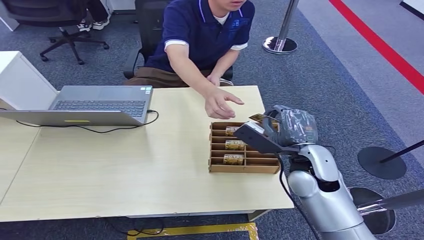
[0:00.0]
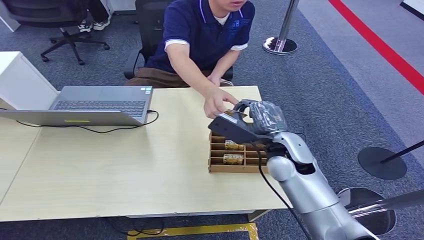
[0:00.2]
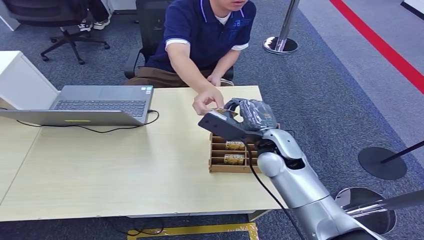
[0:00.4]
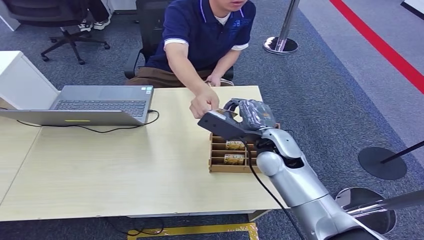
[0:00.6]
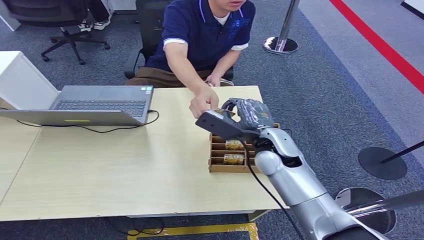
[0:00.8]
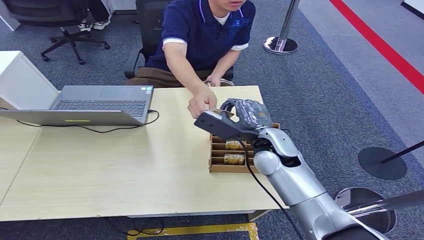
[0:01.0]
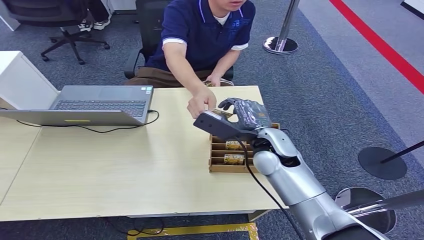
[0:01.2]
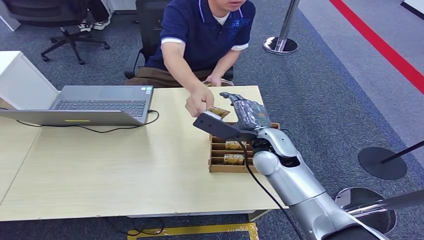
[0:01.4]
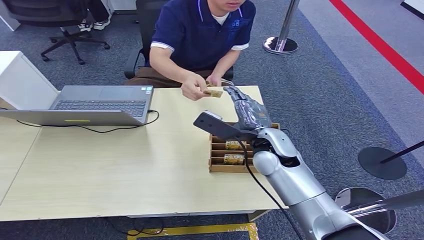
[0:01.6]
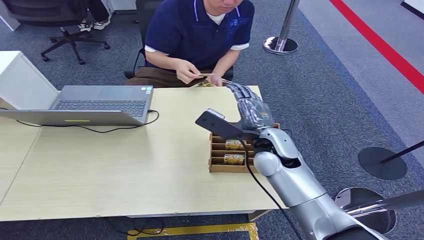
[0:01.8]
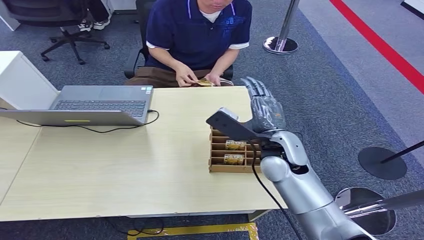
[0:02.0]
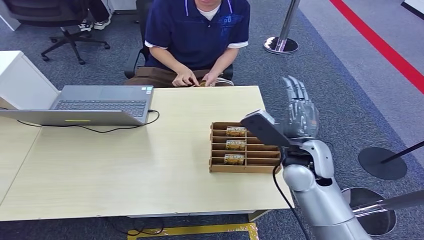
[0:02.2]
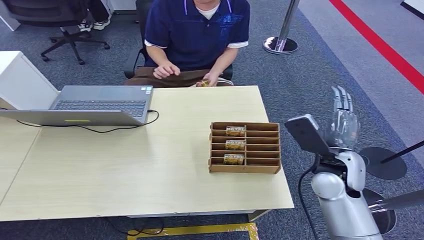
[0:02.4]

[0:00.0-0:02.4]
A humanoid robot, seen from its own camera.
Step, 0:00.0 to 0:02.4: Hand the room card to the target.
0:00.0 to 0:01.2: The right hand is displaced to the left and forward by about 10 cm.
0:01.2 to 0:02.4: The right hand shifts about 15 cm to the right and backward.

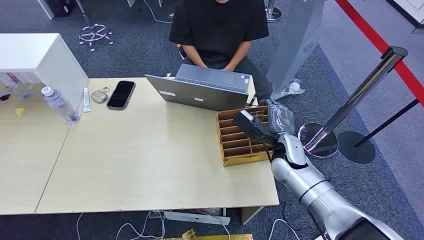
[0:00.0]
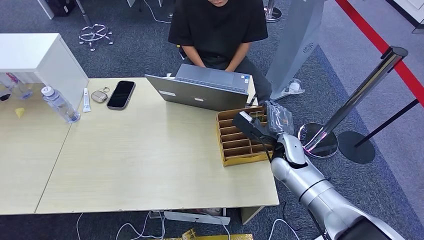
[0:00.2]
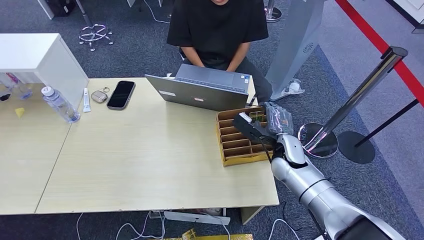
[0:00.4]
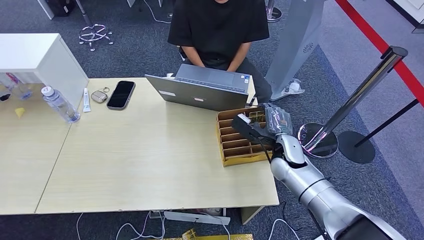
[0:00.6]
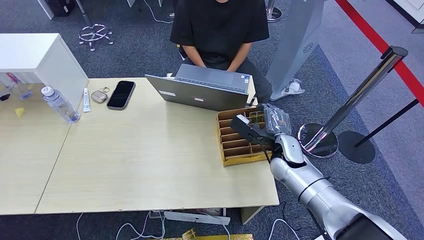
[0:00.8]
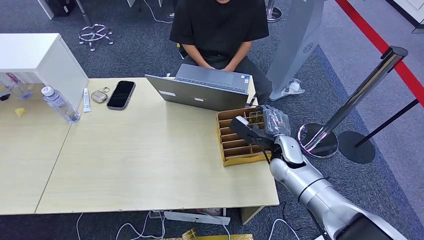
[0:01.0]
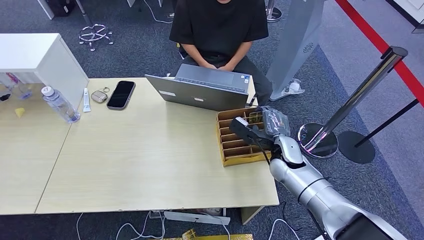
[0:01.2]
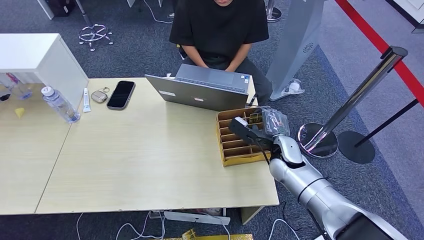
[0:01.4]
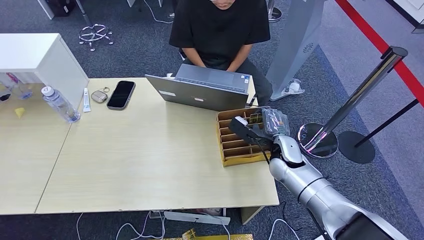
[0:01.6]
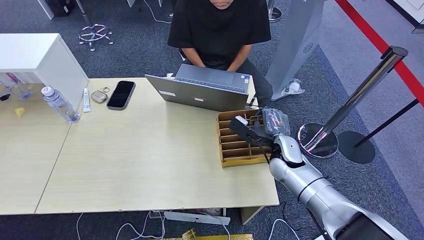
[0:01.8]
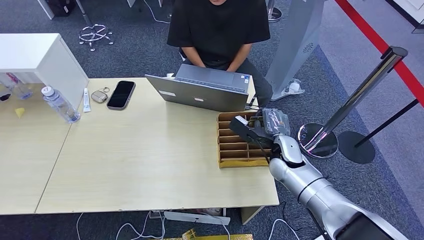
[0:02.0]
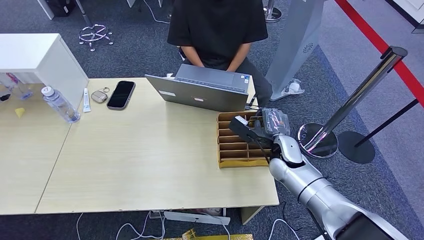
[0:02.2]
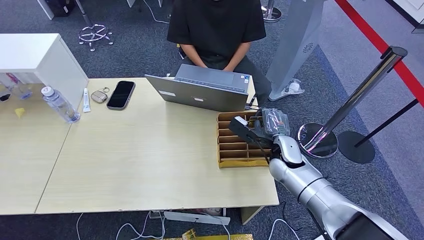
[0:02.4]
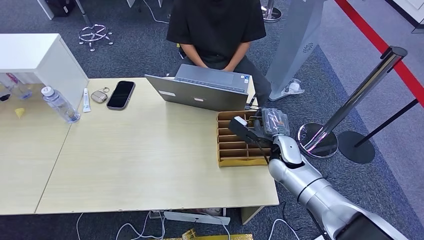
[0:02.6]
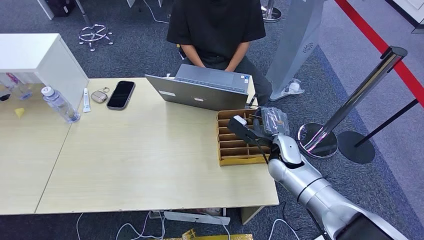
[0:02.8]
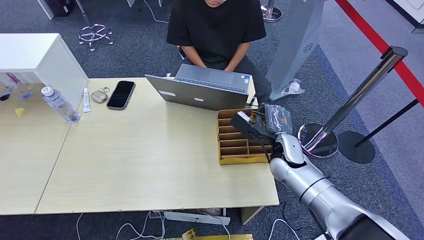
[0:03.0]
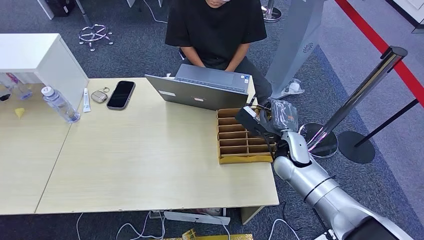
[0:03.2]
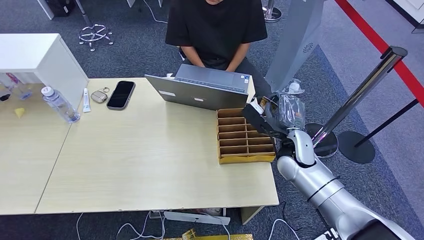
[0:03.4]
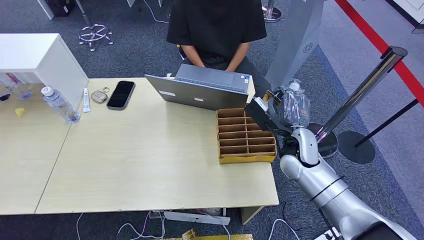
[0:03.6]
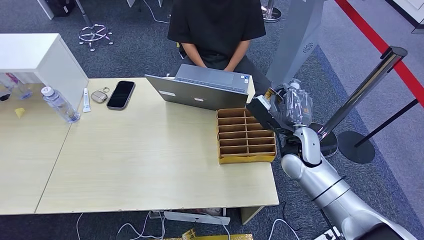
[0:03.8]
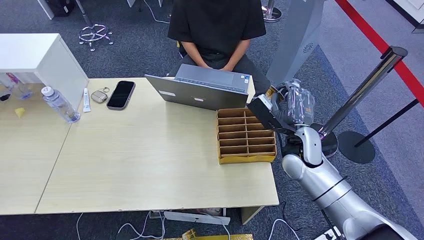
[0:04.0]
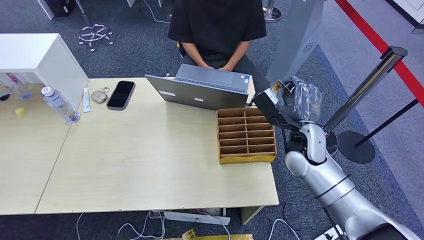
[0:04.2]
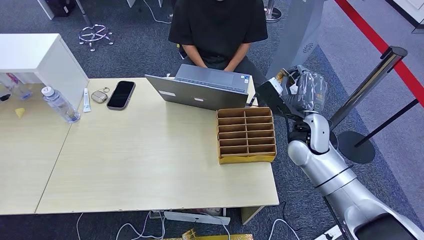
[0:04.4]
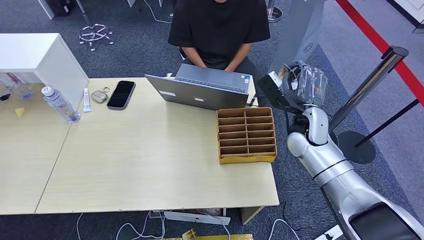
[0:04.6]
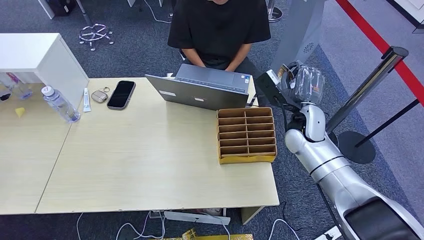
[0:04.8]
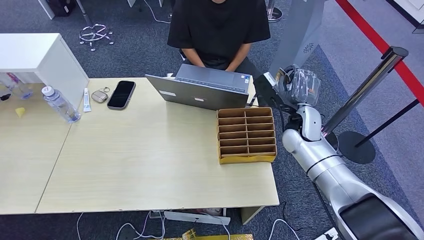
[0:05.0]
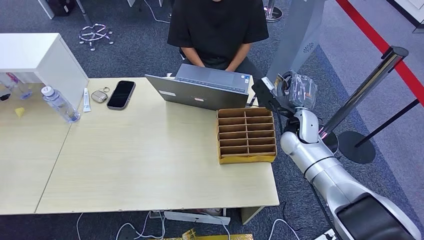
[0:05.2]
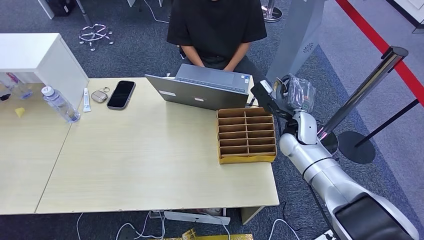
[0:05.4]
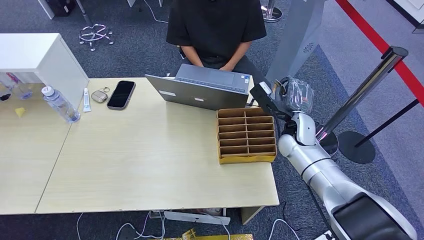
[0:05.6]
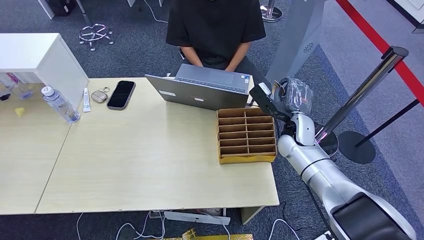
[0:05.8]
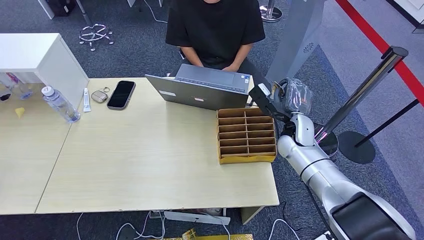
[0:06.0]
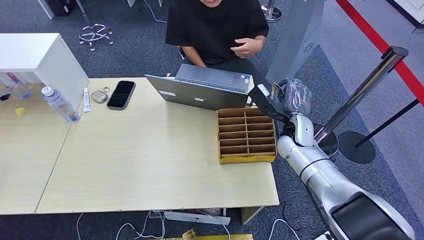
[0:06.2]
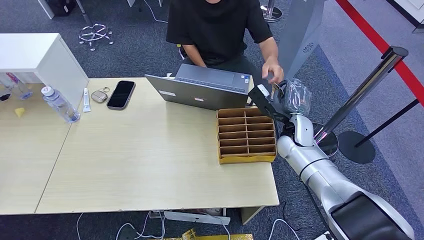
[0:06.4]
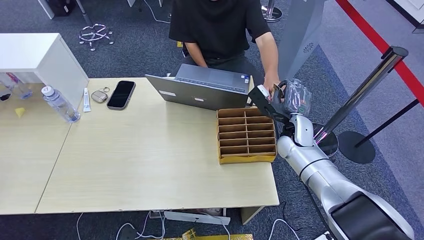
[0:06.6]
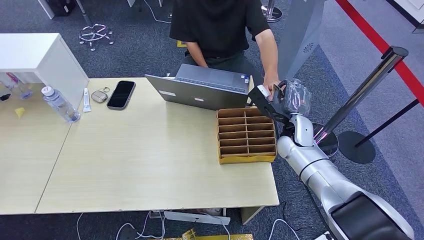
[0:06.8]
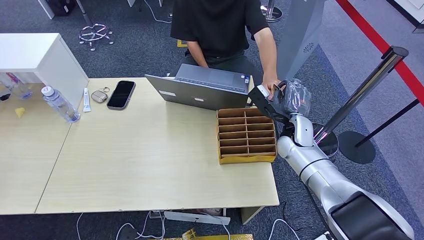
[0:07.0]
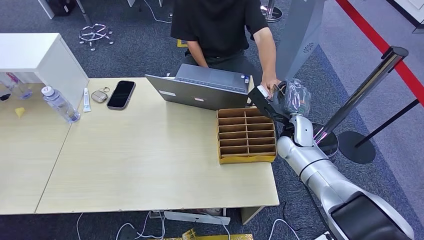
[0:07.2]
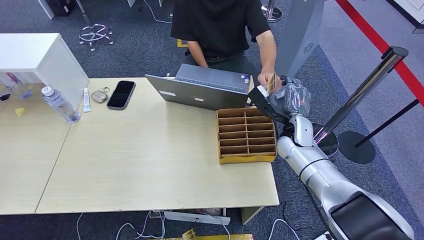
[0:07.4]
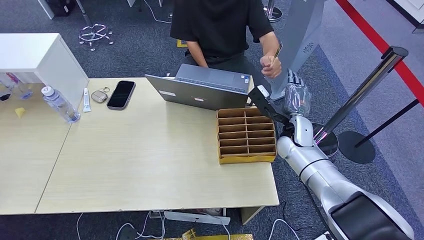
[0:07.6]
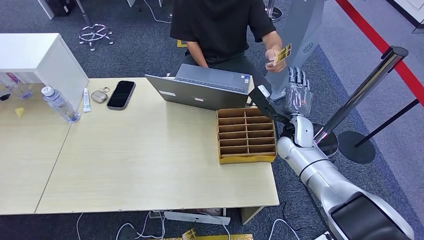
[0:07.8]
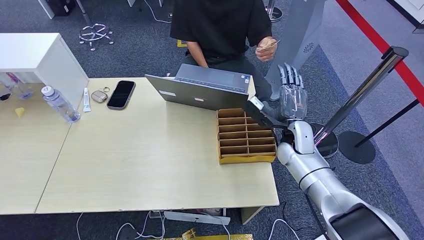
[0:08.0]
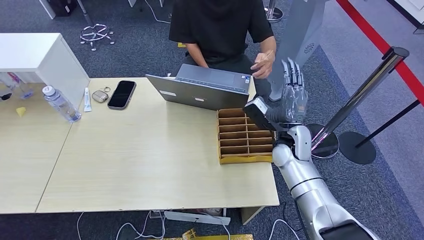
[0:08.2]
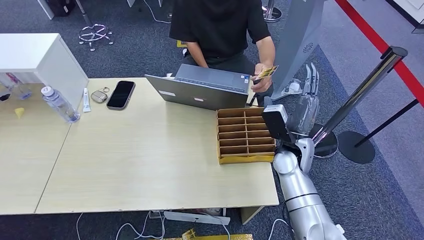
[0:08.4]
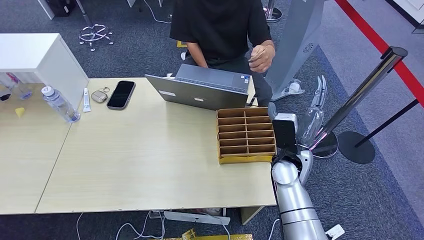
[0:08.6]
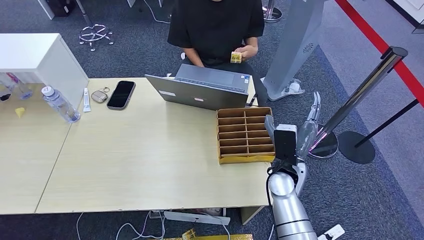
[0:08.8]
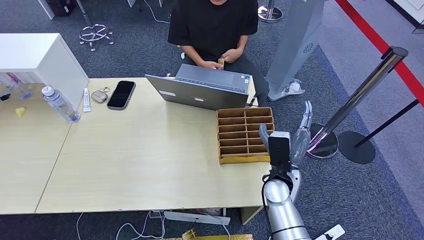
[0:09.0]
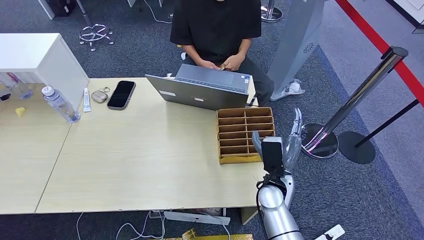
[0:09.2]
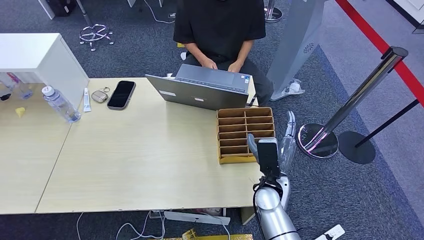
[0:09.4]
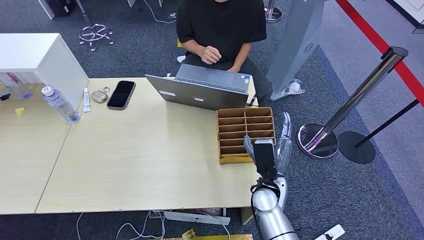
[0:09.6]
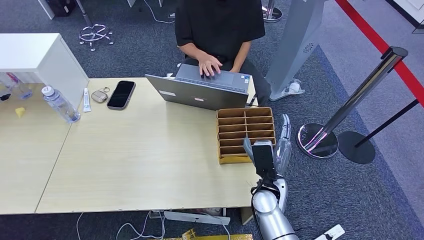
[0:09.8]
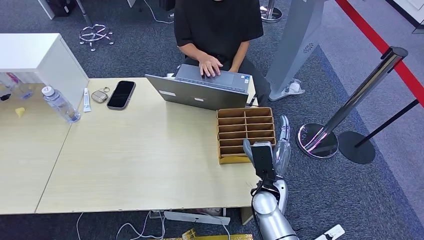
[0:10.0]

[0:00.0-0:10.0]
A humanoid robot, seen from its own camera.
Step, 0:00.0 to 0:04.0: Pick up the room card from the card holder.
Step, 0:04.4 to 0:10.0: Hand the room card to the target.
0:01.4 to 0:02.8: Neither hand changes place.
0:02.8 to 0:04.2: The right hand travels upward by some 5 cm.
0:04.2 to 0:05.8: The right hand moves forward, some 5 cm.
0:05.8 to 0:07.2: The two hands keep their place.
0:07.2 to 0:08.6: The right hand shifts roughly 10 cm backward.
0:08.6 to 0:10.0: The right hand moves downward, backward and to the left, some 10 cm.
